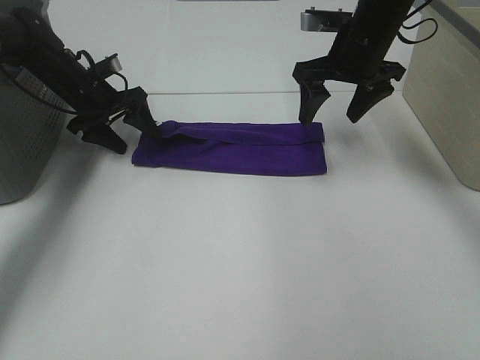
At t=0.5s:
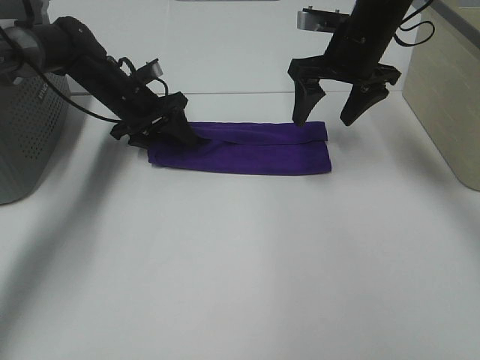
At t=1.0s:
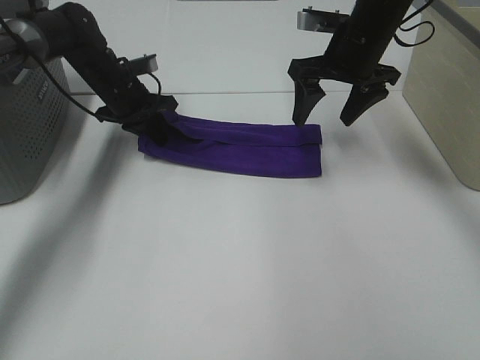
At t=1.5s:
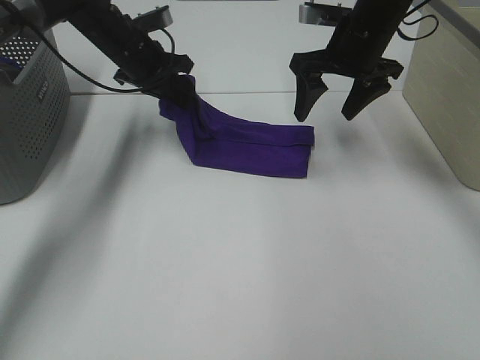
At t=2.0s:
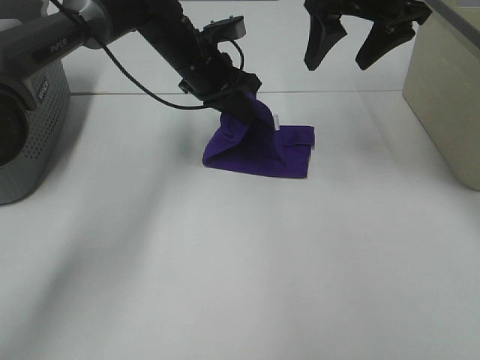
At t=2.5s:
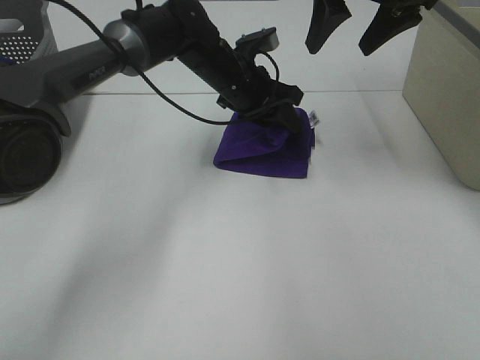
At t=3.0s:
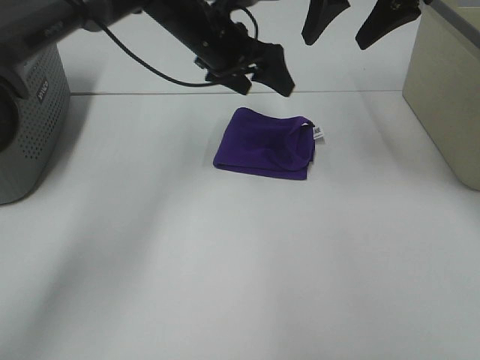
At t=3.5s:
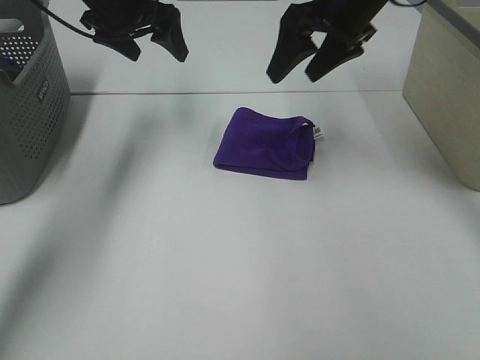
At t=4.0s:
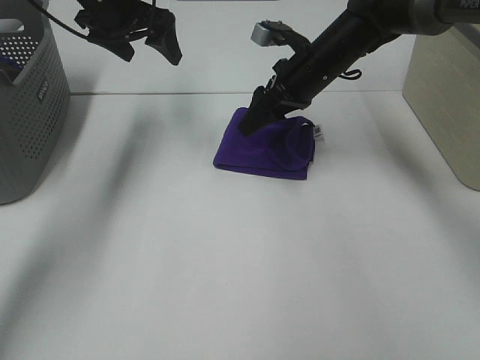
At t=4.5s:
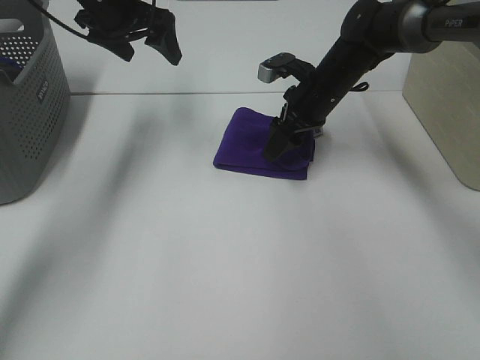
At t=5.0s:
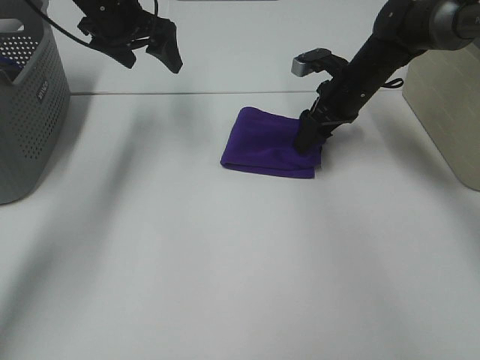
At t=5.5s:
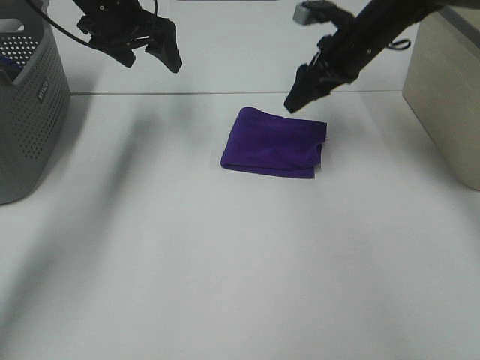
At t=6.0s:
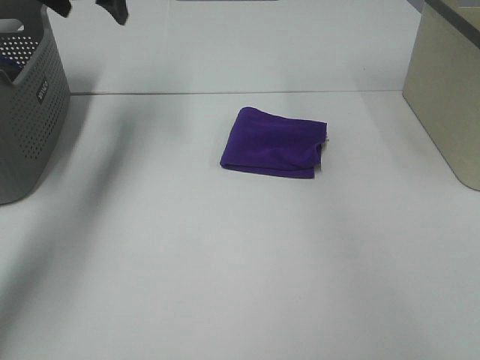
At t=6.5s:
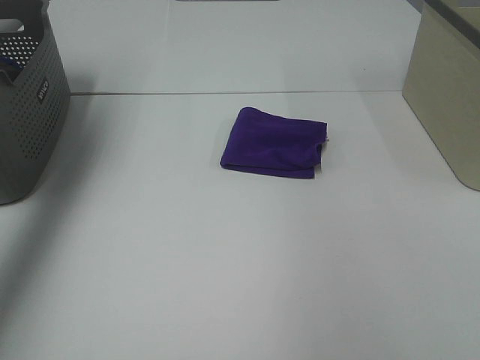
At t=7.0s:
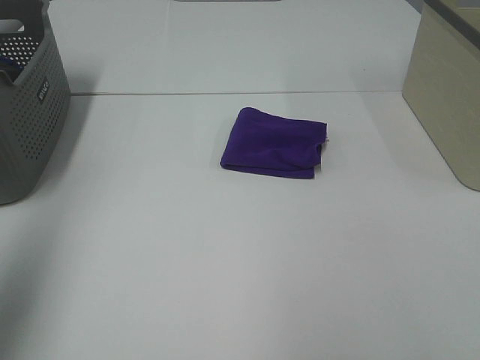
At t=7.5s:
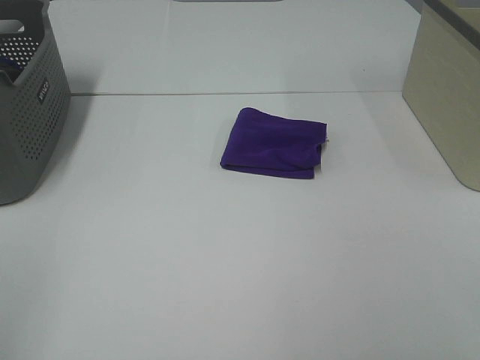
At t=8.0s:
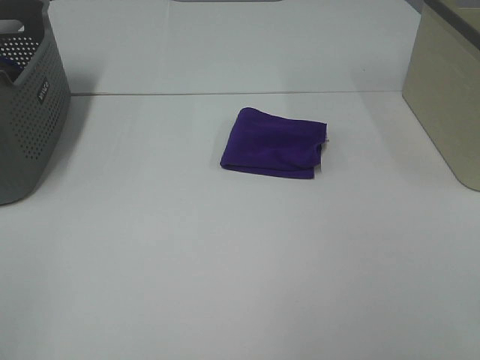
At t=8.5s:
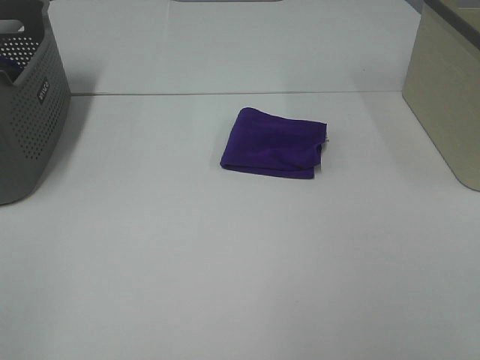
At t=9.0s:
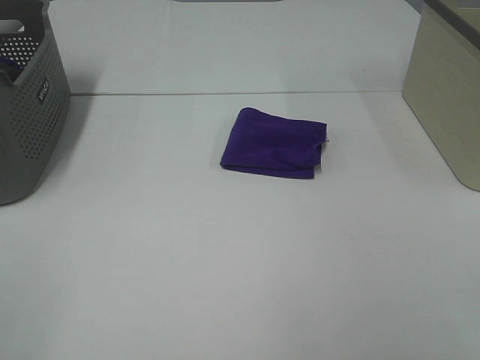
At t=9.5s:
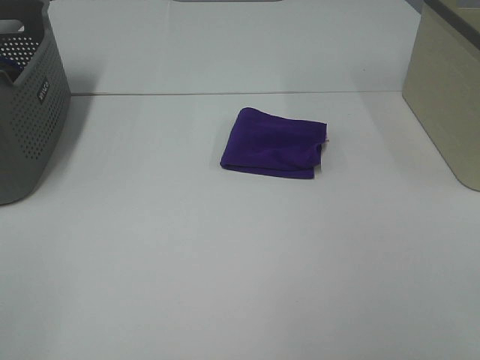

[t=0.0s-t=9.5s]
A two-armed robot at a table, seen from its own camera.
Task of the whole recording: Fold towels.
Step, t=0.0s to t=2.0s: Left hand: fold the purple towel from left to right.
Step, t=2.5s to t=5.0s: Right hand: adjust the purple towel.
t=0.0s to t=2.0s: The right gripper travels upward by about 10 cm; the left gripper shifts about 20 cm to the right, and closes up.
t=2.0s to t=4.0s: The right gripper moves downward, some 15 cm. Meanwhile the left gripper moves to the left and upward, approximately 15 cm, and opens its fingers.
t=4.0s to t=5.5s: The right gripper is displaced to the right by about 5 cm.
t=5.5s to t=7.5s: Both grippers move backward, approximately 50 cm.

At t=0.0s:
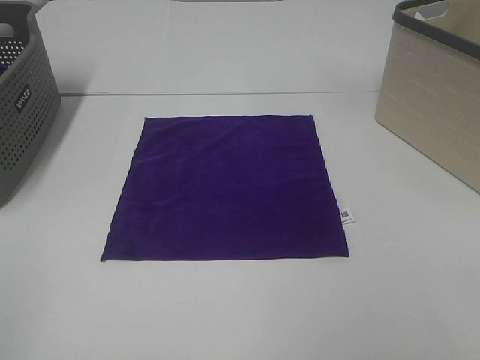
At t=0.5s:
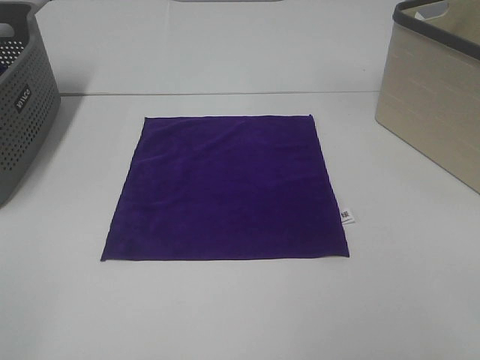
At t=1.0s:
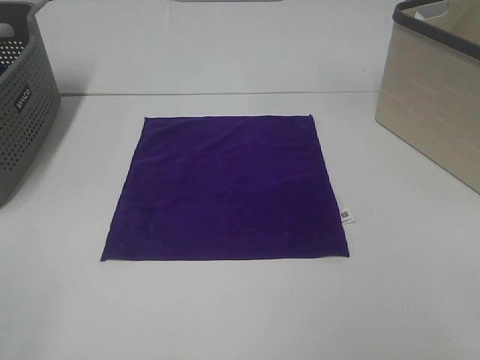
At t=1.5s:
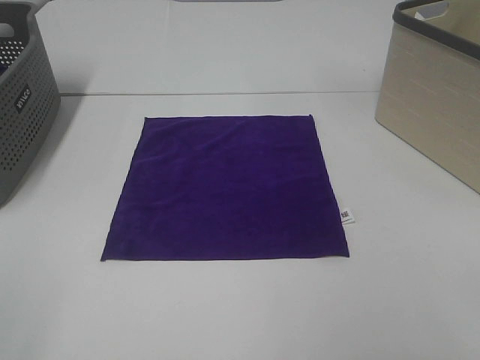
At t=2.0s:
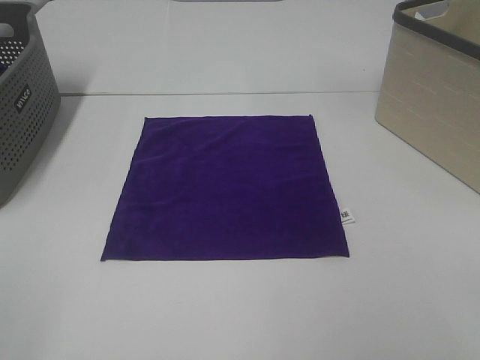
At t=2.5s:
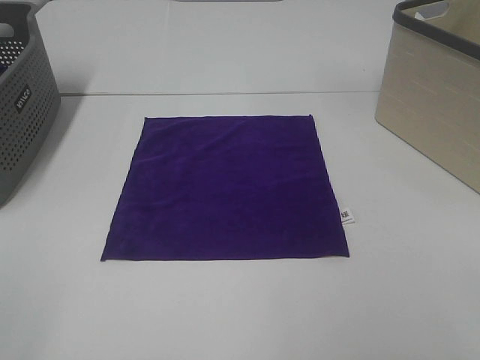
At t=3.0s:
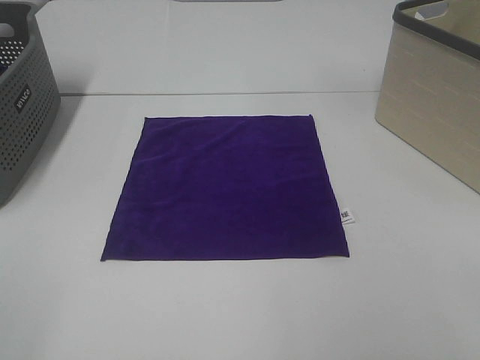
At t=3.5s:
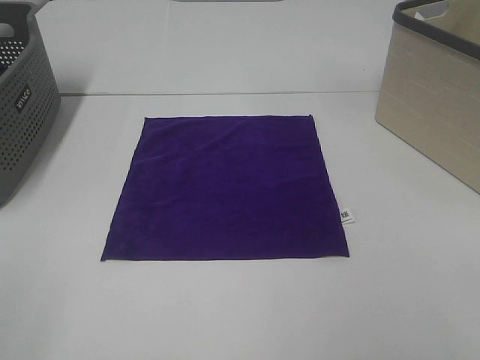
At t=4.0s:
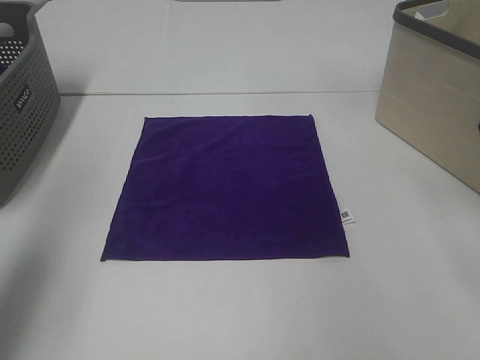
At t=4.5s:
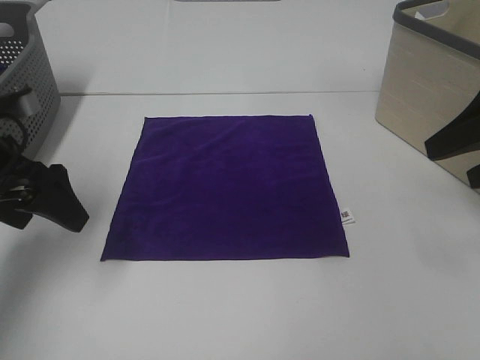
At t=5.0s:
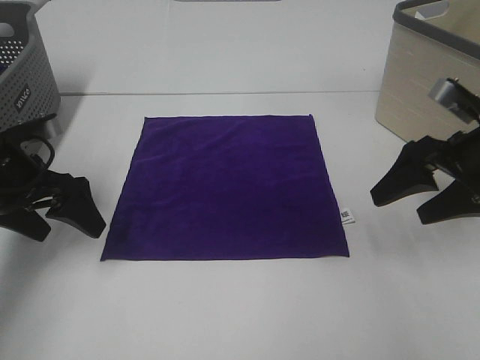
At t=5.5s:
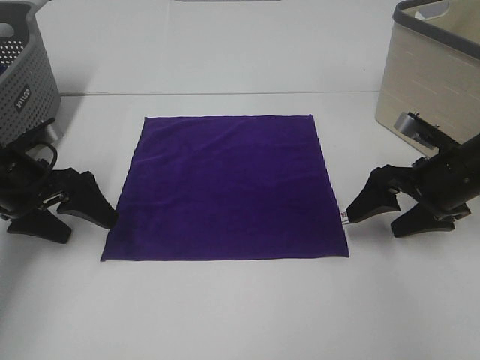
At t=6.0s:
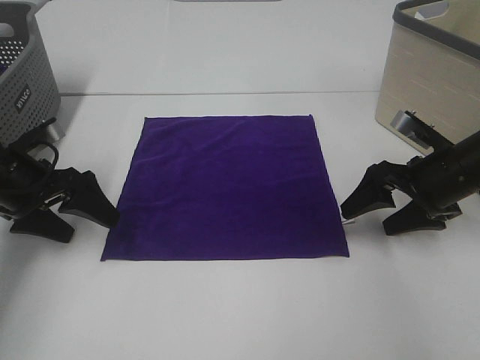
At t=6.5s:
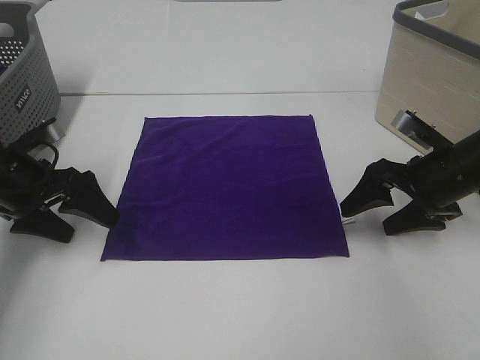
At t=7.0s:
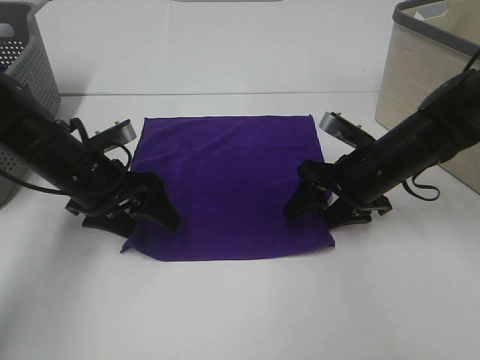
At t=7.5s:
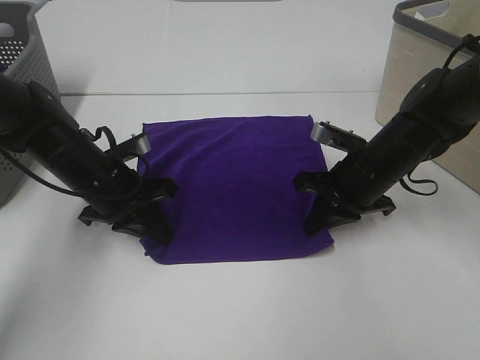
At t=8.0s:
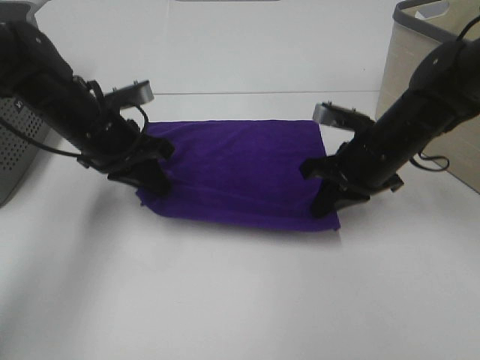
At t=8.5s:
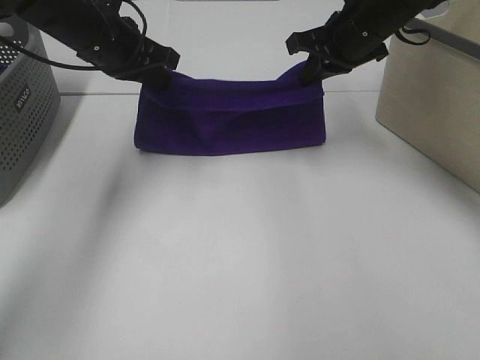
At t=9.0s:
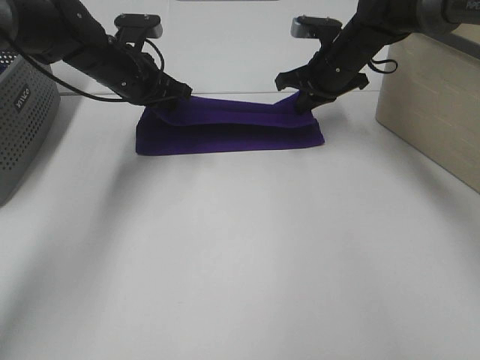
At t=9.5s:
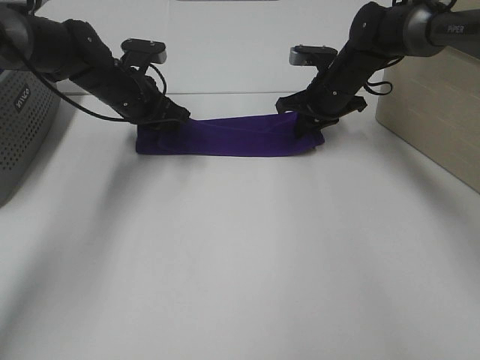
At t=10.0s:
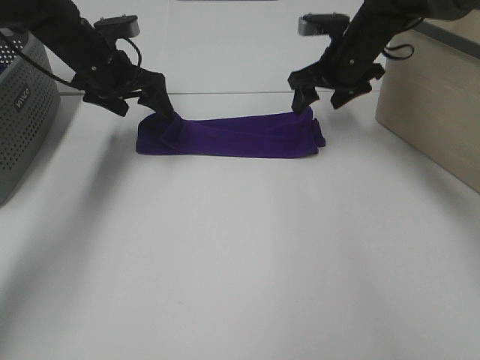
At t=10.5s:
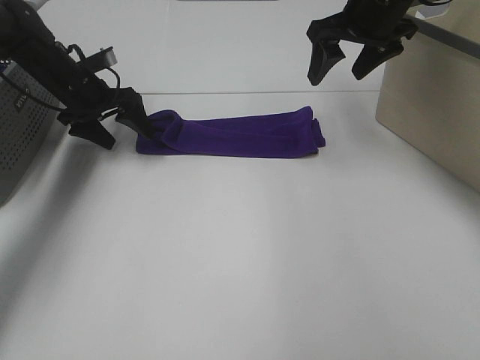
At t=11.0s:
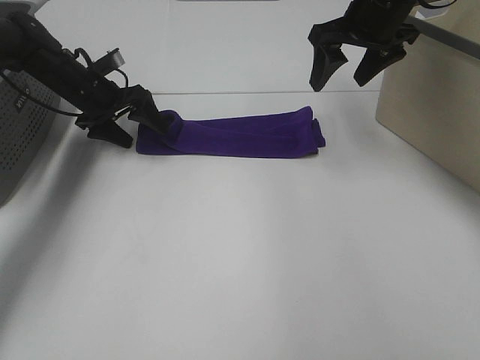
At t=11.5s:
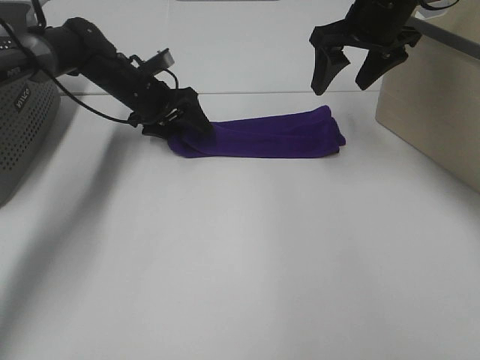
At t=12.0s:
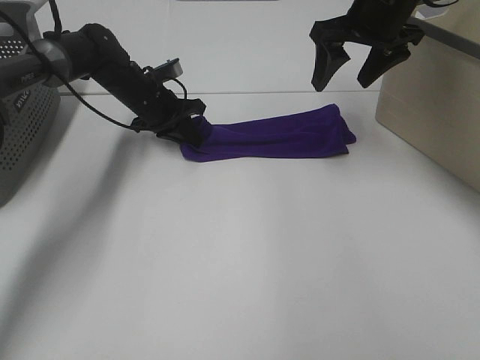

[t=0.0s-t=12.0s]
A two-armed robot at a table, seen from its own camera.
Task of the whole recording: Fold towels.
Step, t=0.0s to t=7.5s: Left hand: grab the bottom left corner of purple towel.
Step, t=0.0s to t=7.5s: Right hand: grab the bottom right corner of purple towel.
Step, t=8.0s to t=9.5s: Left hand: fold the purple towel up.
Step, t=8.0s to t=9.5s: Right hand: fold the purple towel up.
t=2.0s to t=4.0s: The left gripper is displaced forward by some 20 cm.
t=4.0s to t=6.0s: Both grippers travel together downward and forward, approximately 25 cm.
t=6.0s to t=8.0s: The right gripper is displaced to the left by some 10 cm, and closes up; the left gripper shifts roughly 10 cm to the right, and closes up.
t=8.0s to t=10.0s: The right gripper heads forward and upward, covering about 15 cm, and opens up, while the left gripper heads forward, covering about 10 cm, and opens.
t=10.0s to t=12.0s: The right gripper goes roughly 5 cm upward, while the left gripper shifts some 10 cm downward, and closes its fingers.

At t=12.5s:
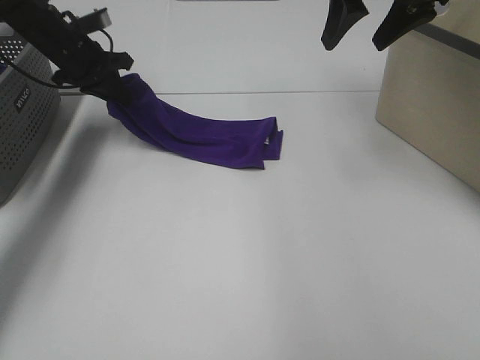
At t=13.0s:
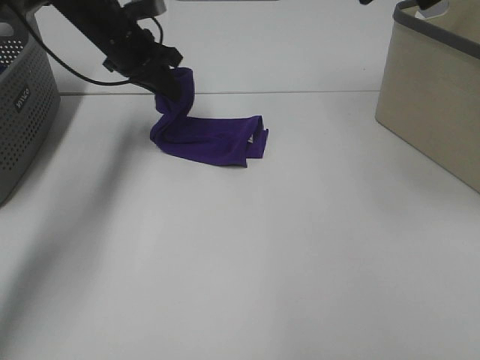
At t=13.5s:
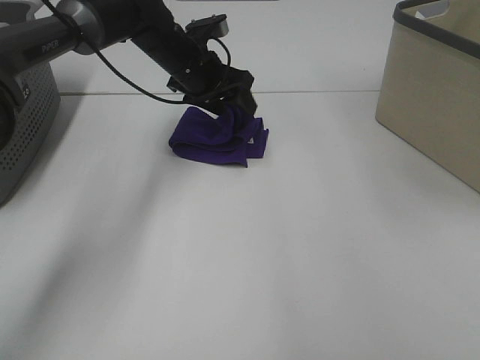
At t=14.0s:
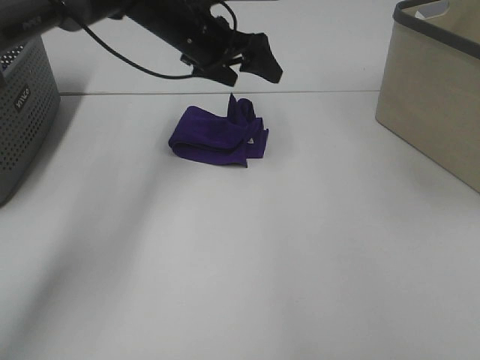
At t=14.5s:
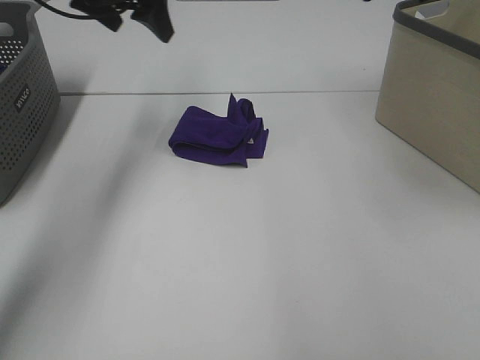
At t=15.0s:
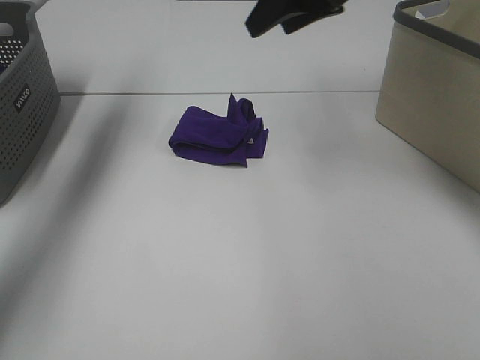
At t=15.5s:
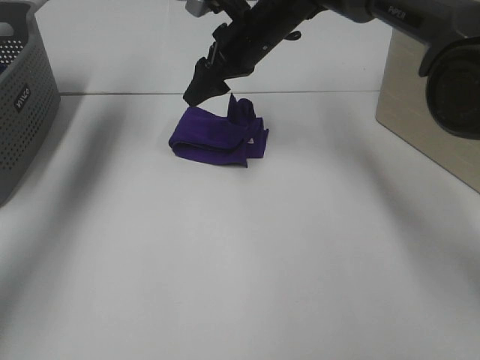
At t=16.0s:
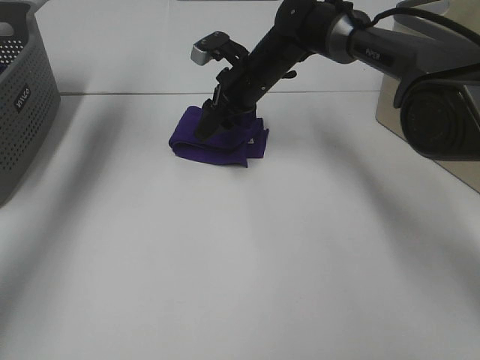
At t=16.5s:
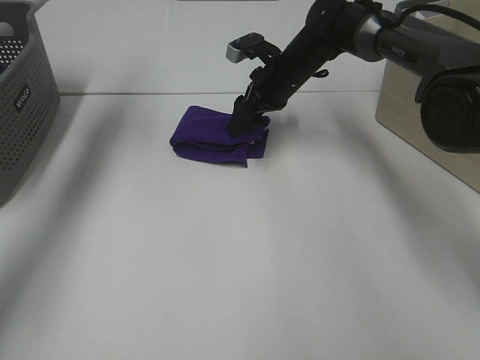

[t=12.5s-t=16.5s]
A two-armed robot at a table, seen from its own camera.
Task of the whole recording: Fold towels.
t=12.5s to t=14.5s: The right gripper is displaced backward and upward by approximately 10 cm; the left gripper travels upward and to the right by about 15 cm, and opens its fingers.
t=14.5s to t=16.5s: The left gripper heads to the left and upward, covering some 10 cm. Meanwhile the right gripper moves downward, forward and to the left, roughly 35 cm.
